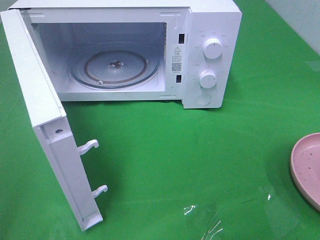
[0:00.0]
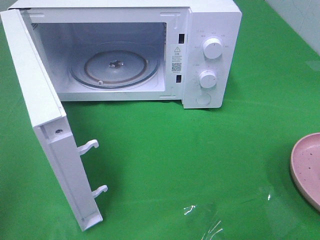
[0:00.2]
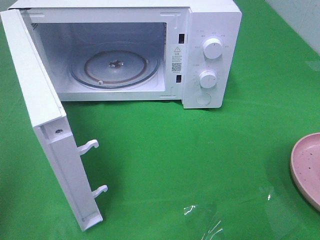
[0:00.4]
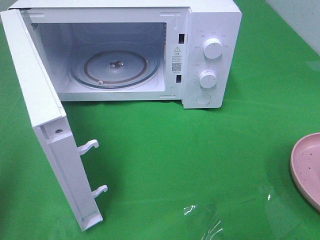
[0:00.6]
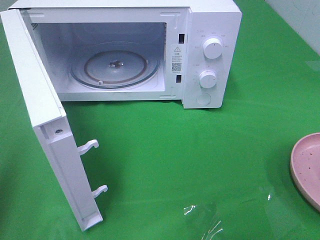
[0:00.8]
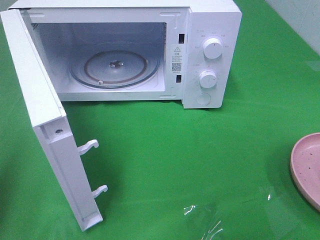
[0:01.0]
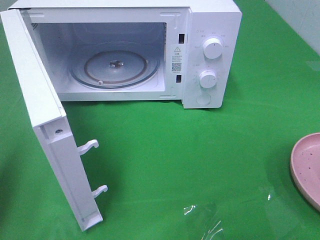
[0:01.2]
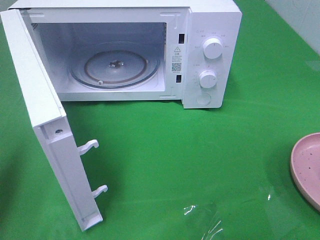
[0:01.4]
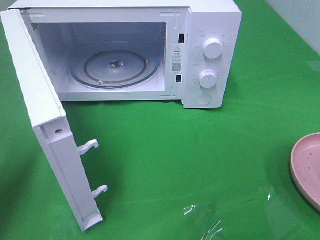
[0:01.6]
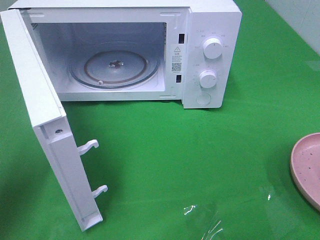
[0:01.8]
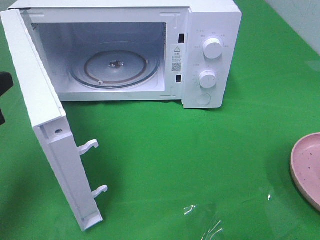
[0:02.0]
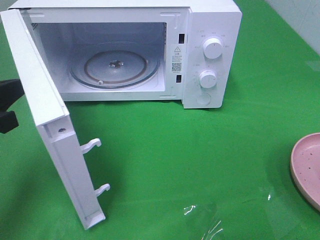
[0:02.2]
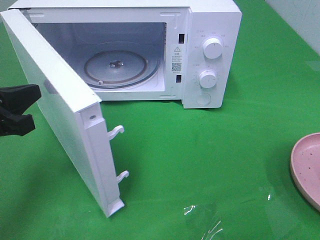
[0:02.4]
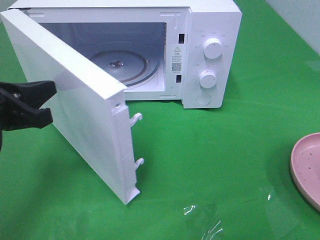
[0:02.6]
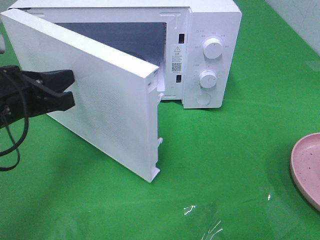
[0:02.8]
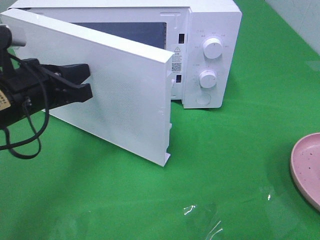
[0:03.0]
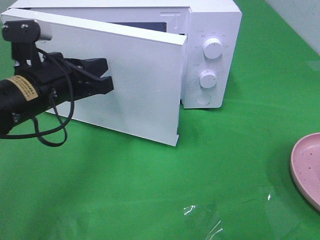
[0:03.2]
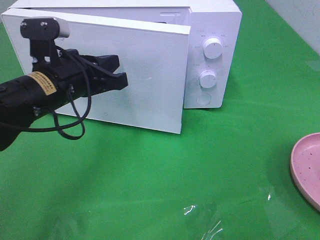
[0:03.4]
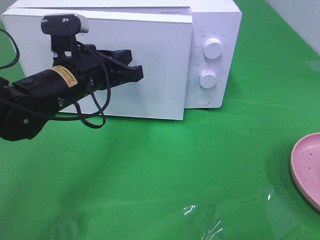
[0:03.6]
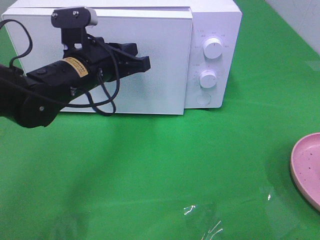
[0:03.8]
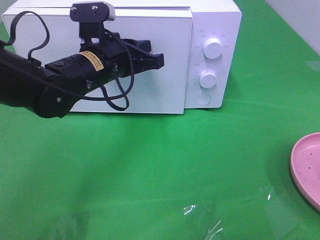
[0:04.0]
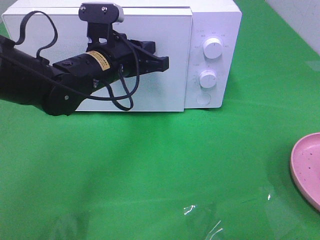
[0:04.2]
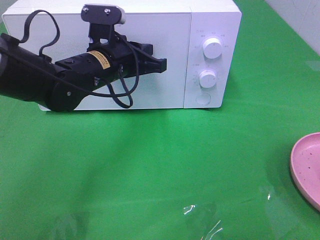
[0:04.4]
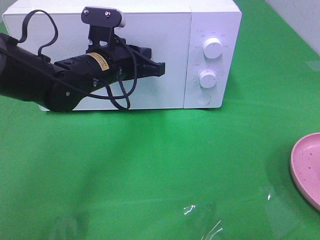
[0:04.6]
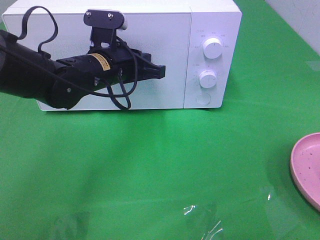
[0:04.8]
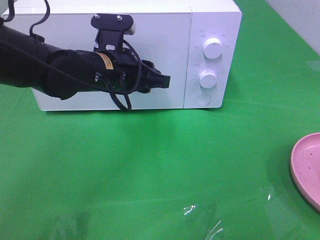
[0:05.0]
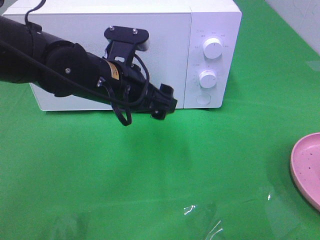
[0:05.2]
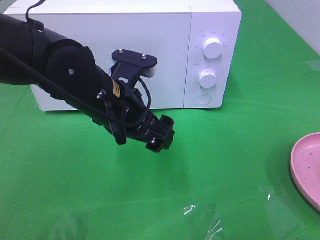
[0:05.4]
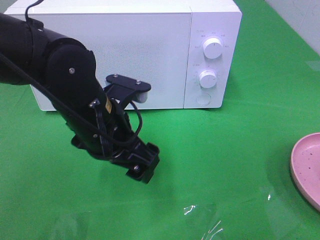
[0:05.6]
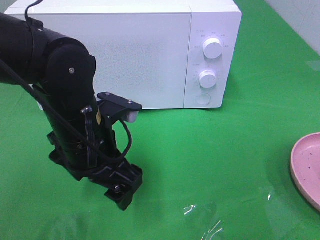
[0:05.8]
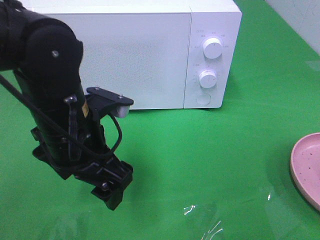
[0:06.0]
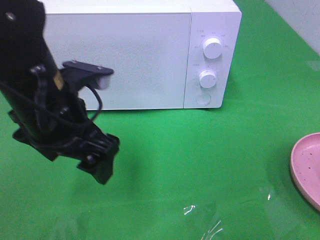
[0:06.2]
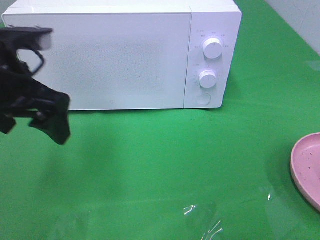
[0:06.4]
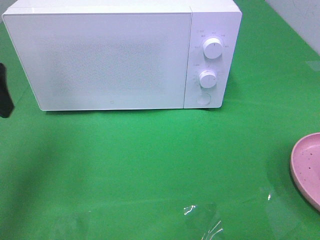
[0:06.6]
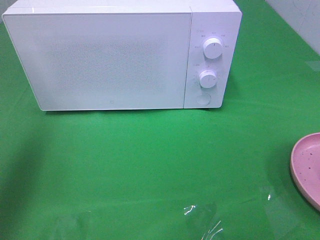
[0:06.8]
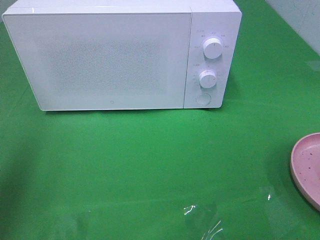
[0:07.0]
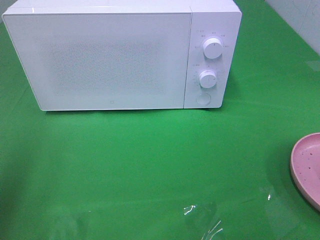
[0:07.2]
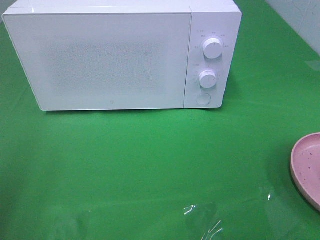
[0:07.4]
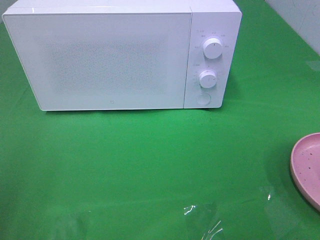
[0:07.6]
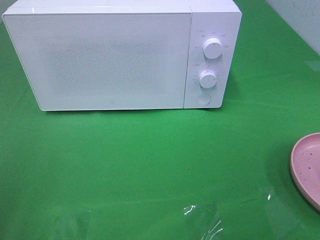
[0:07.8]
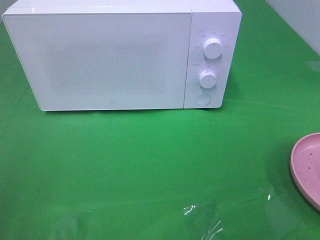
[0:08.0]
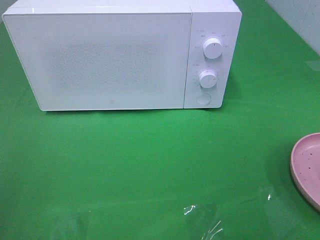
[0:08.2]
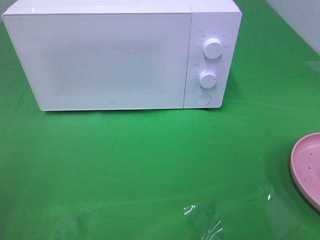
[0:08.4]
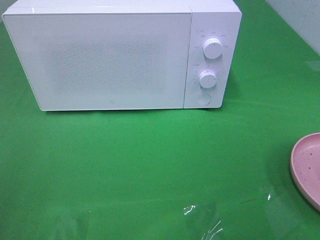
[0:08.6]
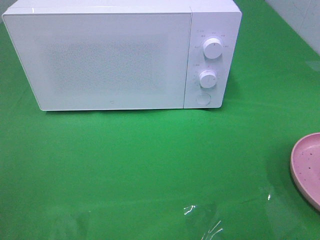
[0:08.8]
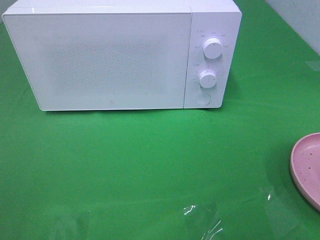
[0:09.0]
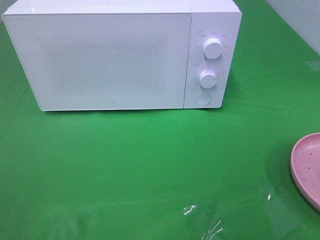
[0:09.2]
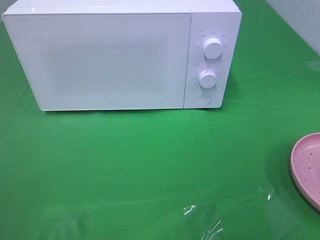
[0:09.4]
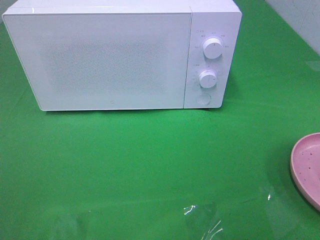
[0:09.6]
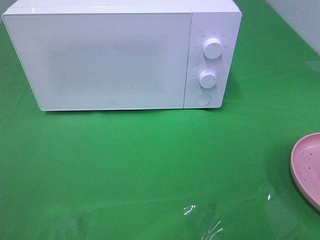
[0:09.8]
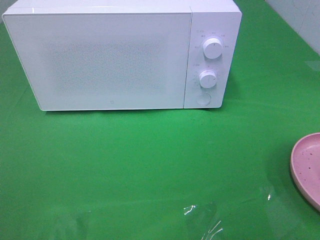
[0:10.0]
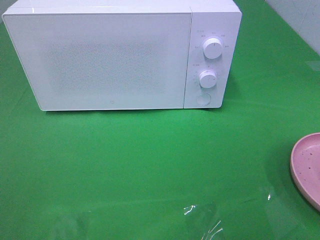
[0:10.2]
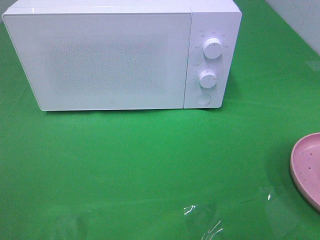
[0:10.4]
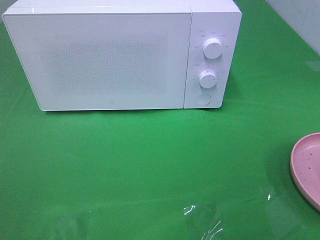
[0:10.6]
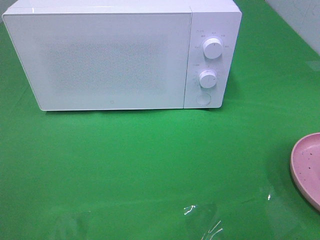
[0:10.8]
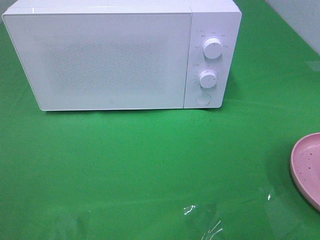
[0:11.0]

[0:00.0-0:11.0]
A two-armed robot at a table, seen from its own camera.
Task of the whole recording: Heat the burger.
Step, 0:00.0 to 0:05.0: Left hand: close the microwave door.
0:00.0 to 0:01.6: The left gripper travels forward and downward by some 20 cm, and closes up.
0:01.6 to 0:03.2: The left gripper shifts about 20 cm to the right and forward.
0:03.2 to 0:04.8: The left gripper travels forward and to the right by approximately 10 cm.
0:04.8 to 0:06.2: The left gripper moves backward and upward, roughly 15 cm, and opens up.
0:06.2 to 0:07.8: The left gripper goes some 25 cm to the left and backward.
0:09.4 to 0:11.0: Both grippers stay put.

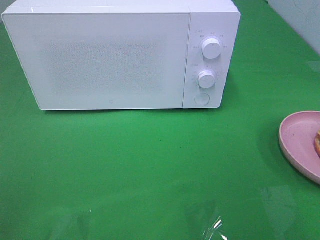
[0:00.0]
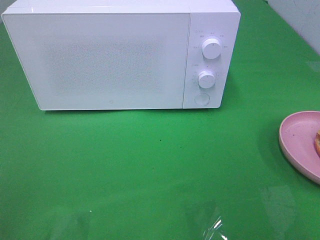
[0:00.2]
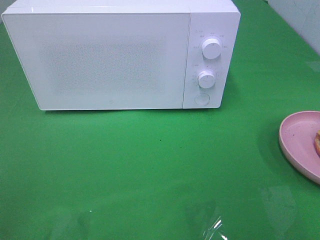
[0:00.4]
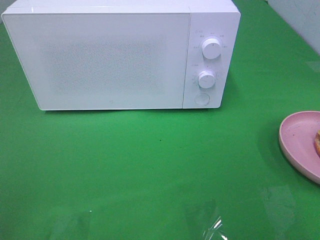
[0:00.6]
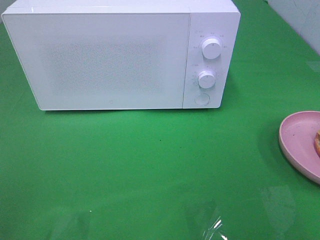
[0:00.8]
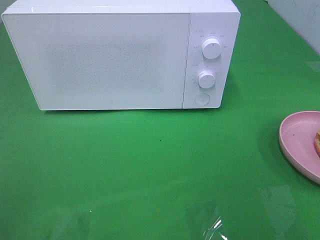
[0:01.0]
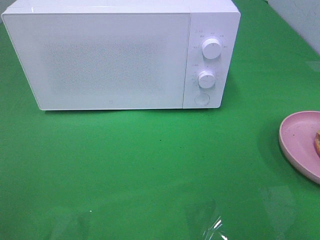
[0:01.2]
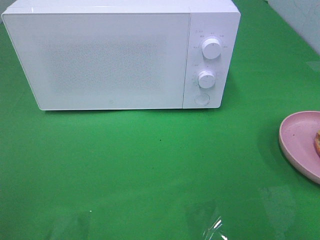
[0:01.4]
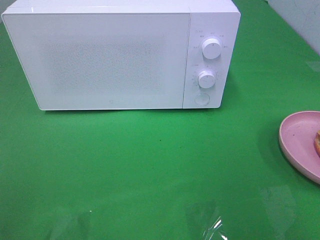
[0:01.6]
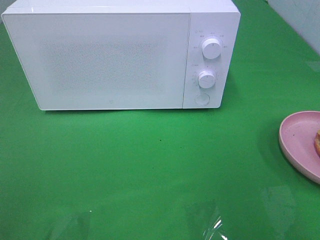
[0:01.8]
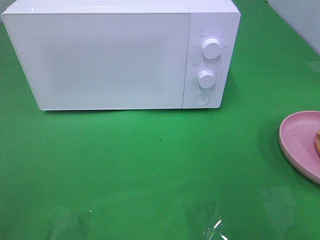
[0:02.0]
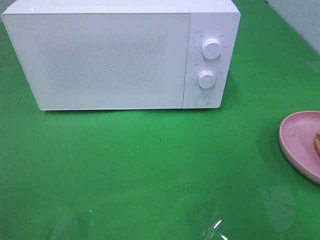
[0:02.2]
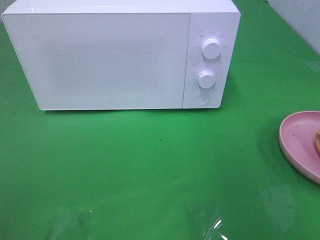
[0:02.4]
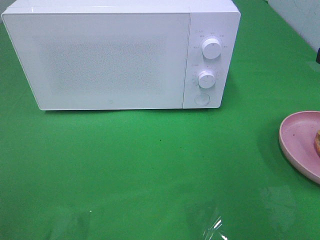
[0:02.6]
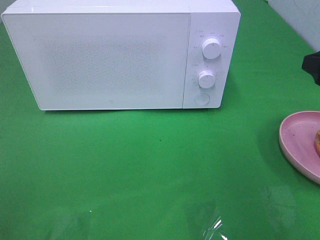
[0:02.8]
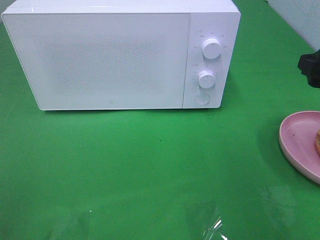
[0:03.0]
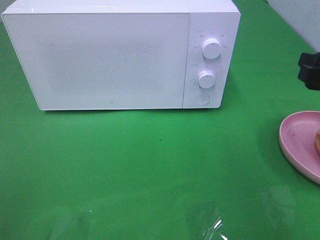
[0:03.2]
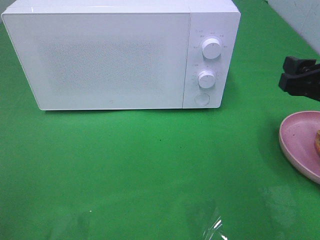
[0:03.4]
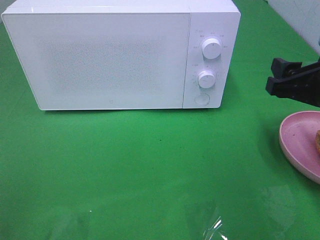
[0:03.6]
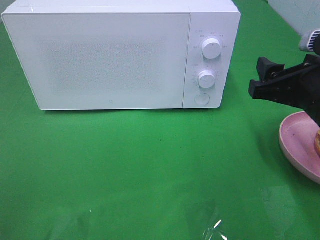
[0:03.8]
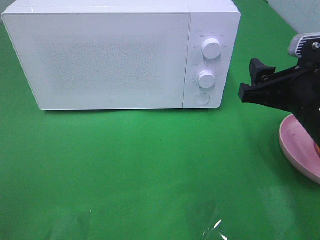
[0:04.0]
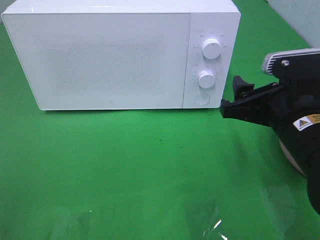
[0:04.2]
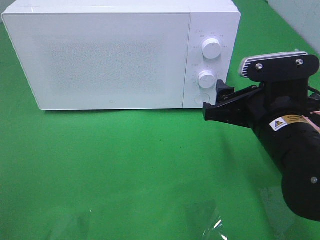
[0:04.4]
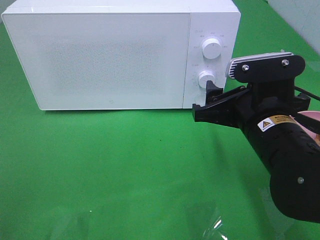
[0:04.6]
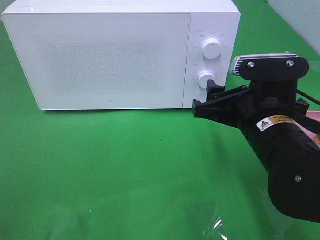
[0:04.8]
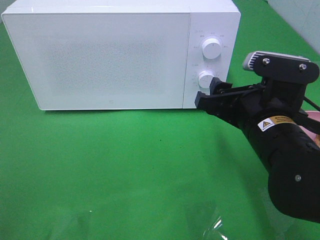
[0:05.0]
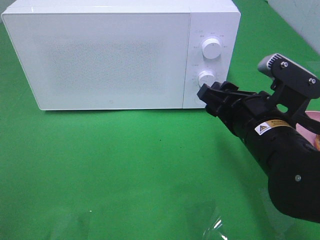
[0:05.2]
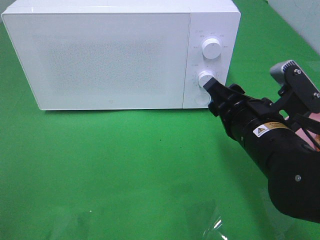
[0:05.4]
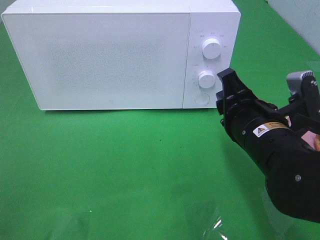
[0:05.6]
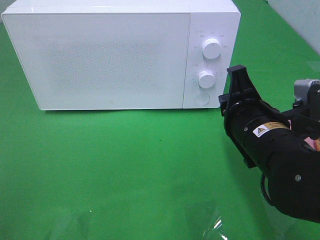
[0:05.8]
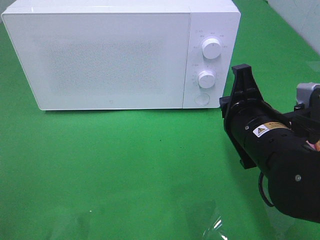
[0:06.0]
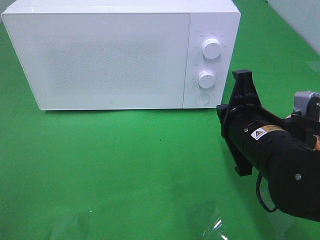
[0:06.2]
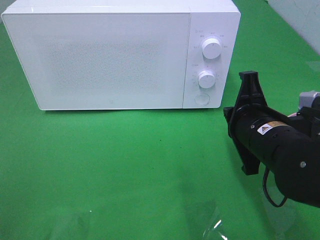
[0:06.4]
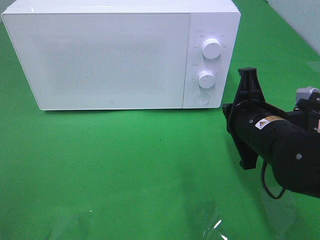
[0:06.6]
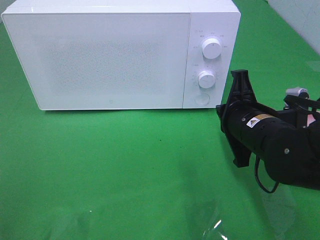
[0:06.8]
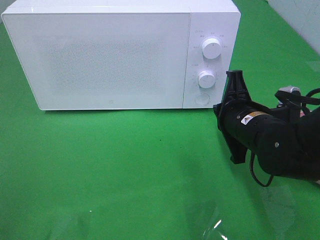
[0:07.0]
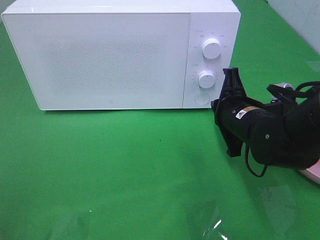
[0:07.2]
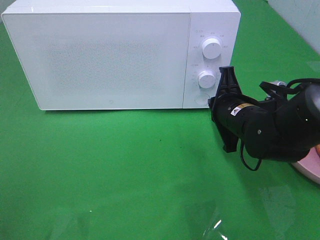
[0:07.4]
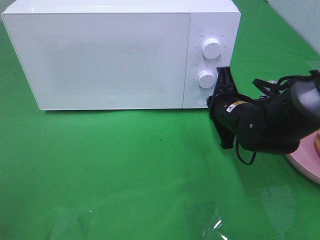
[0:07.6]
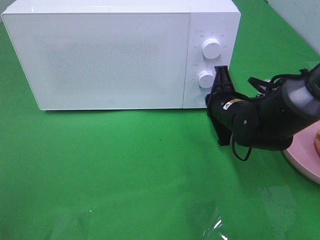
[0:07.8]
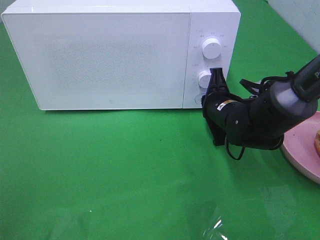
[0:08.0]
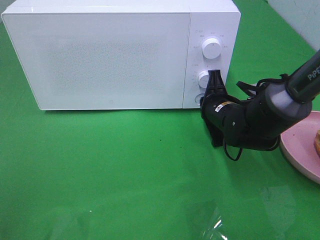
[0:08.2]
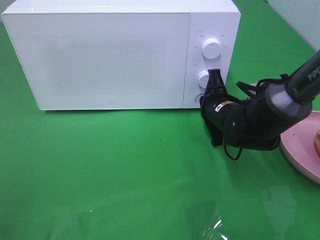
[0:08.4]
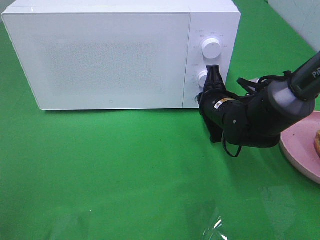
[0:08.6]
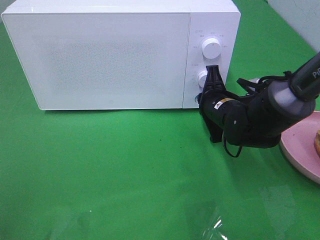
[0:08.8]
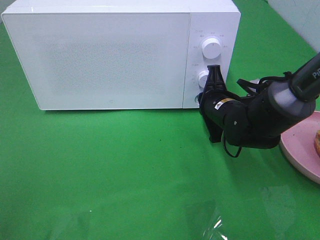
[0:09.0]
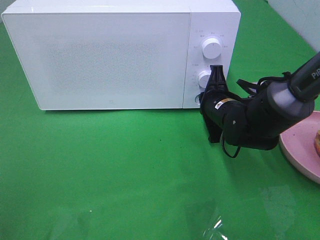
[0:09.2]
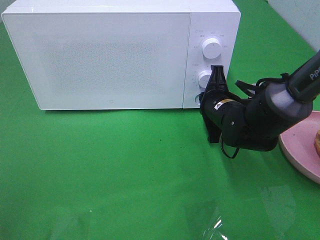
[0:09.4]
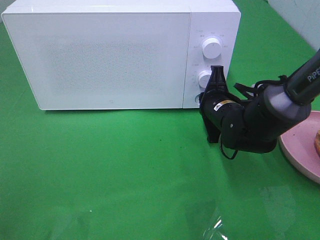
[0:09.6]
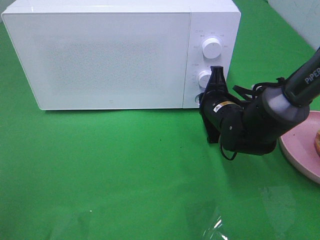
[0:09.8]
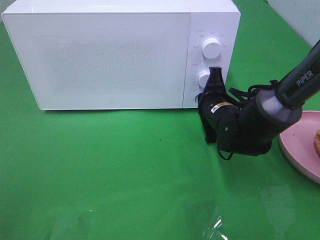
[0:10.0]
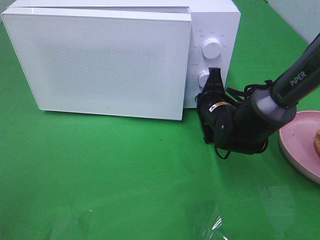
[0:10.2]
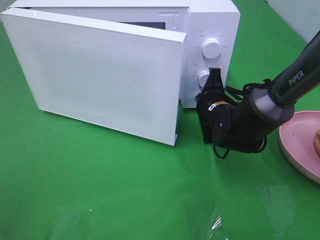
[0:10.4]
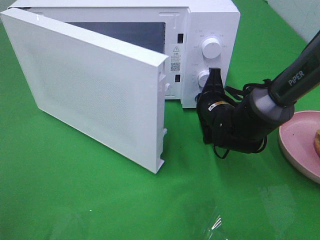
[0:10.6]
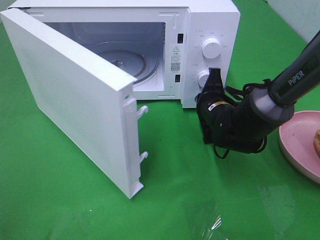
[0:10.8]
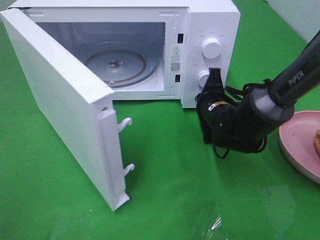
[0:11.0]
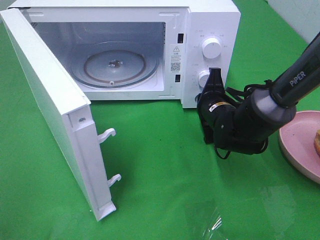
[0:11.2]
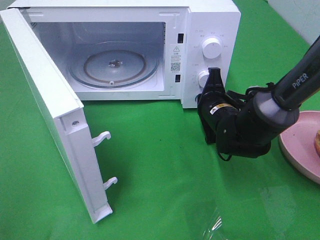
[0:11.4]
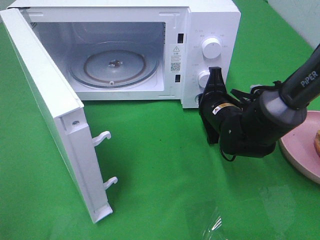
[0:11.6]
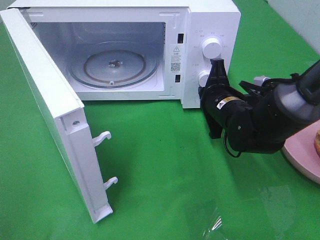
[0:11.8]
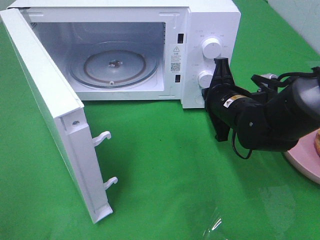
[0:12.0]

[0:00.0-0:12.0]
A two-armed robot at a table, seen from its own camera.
Task of the whole recording: Heat the burger.
Step, 0:00.0 to 0:12.0: Right hand: press the switch.
0:01.6 to 0:03.0: The right gripper shifts approximately 15 cm forward and downward.
0:03.0 to 0:04.4: The right gripper travels to the left and downward by approximately 15 cm.
0:04.4 to 0:06.0: The right gripper closes up.
0:06.0 to 0:07.6: The right gripper shifts roughly 15 cm forward and downward.
0:07.6 to 0:10.4: The grippers stay close to where they were, moving slightly.
0:10.4 to 0:12.0: The right gripper shifts by roughly 5 cm.
